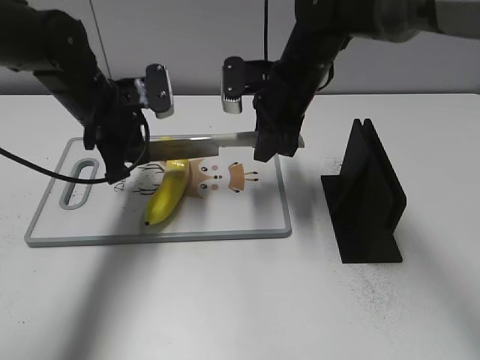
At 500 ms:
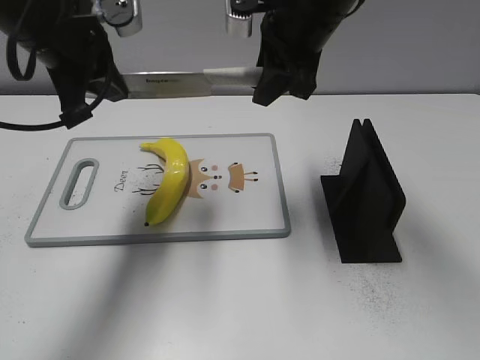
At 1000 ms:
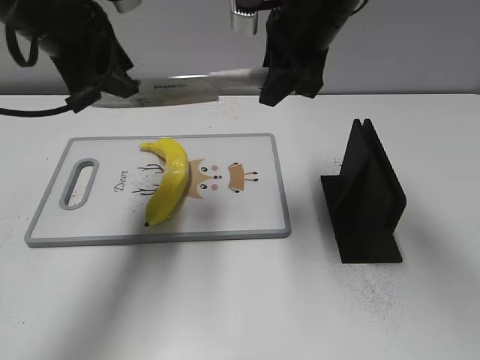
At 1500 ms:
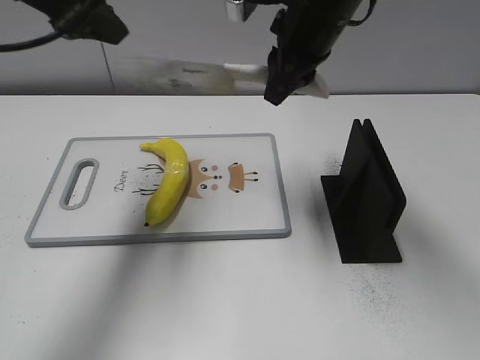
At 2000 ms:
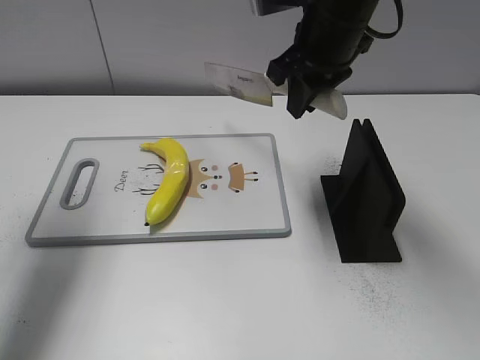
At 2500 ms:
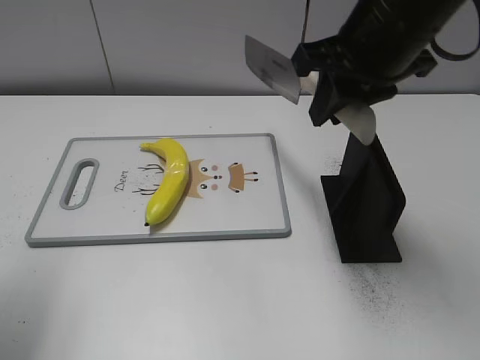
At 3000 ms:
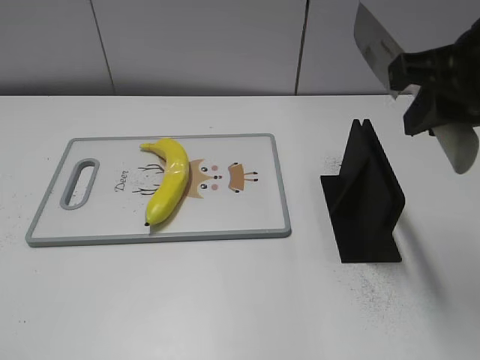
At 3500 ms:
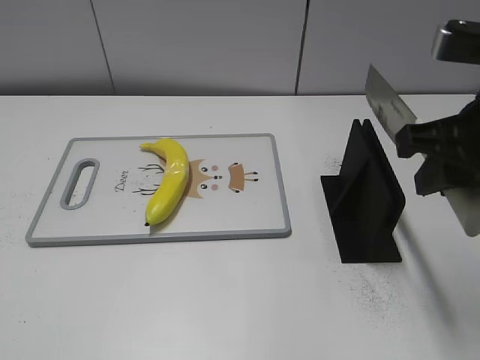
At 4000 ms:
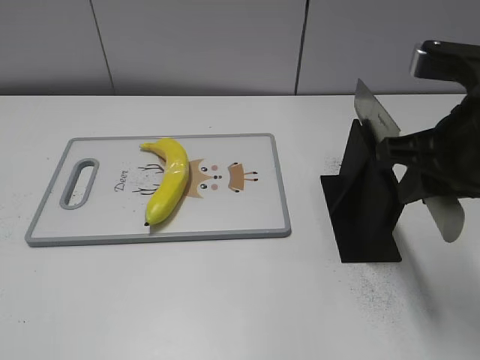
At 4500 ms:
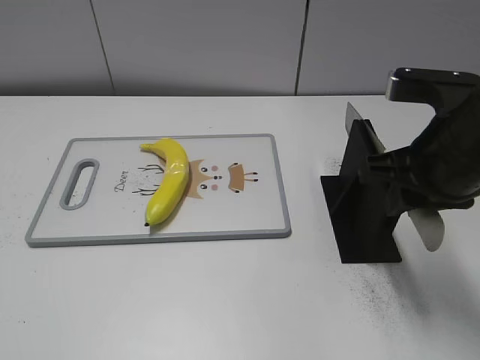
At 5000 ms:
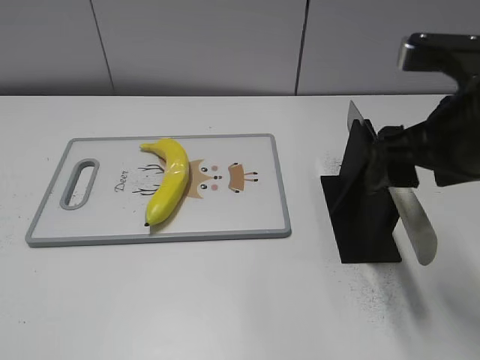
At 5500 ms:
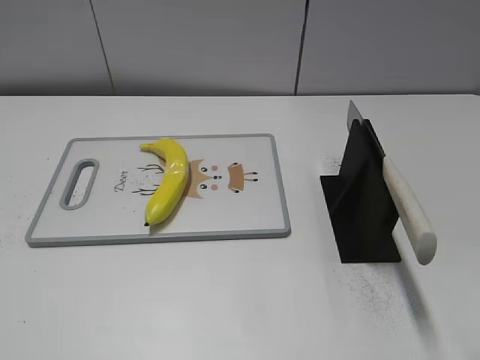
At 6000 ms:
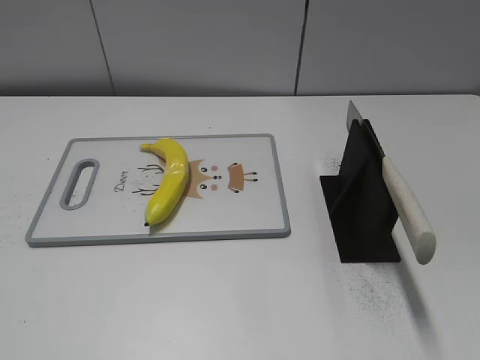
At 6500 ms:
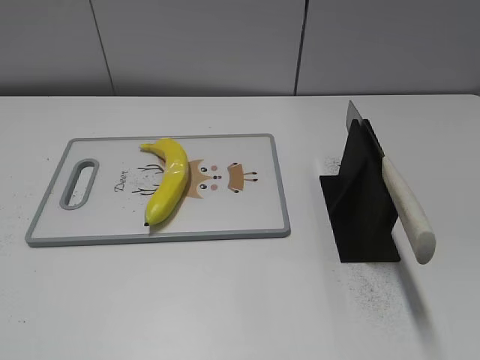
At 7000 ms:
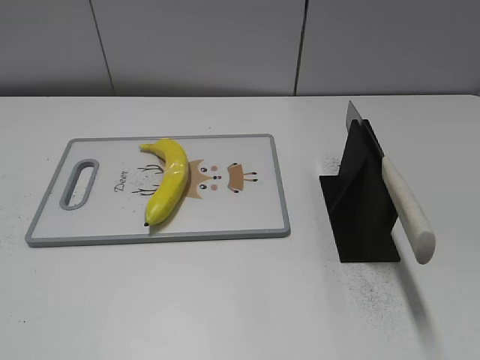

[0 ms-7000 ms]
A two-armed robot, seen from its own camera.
Task of the whole recording: cut plastic banana.
Step, 1500 ms to 2000 ms: Cut the banana with your left hand.
Step, 2500 ms to 3500 ms: Lift the knife with your right hand.
Step, 4000 ms to 7000 ms: Place the knife on the storage rack with your right hand.
0 ms to 2000 ms: The right gripper goes approximately 10 cm upward, while the left gripper moves upward, to the left and backward, roughly 20 cm, and opens its fingers.
2000 ms to 3500 ms: The right gripper travels backward and to the right by roughly 20 cm. Meanwhile the left gripper travels backward by some 30 cm.
3500 ms to 5000 ms: The right gripper opens.
5000 ms to 7000 ms: The right gripper goes some 25 cm backward and to the right.
